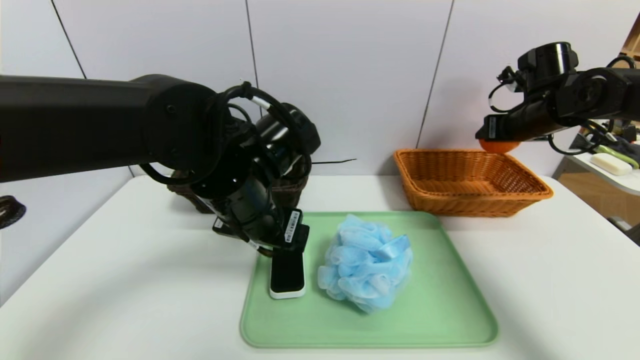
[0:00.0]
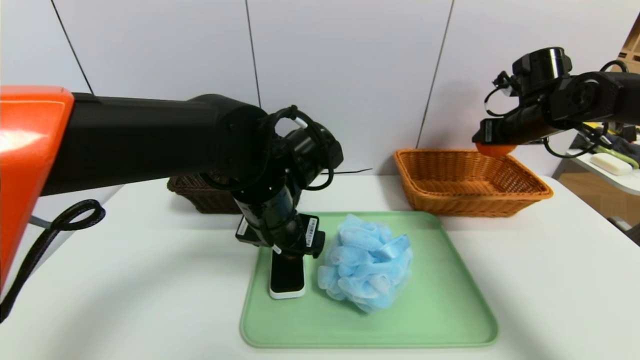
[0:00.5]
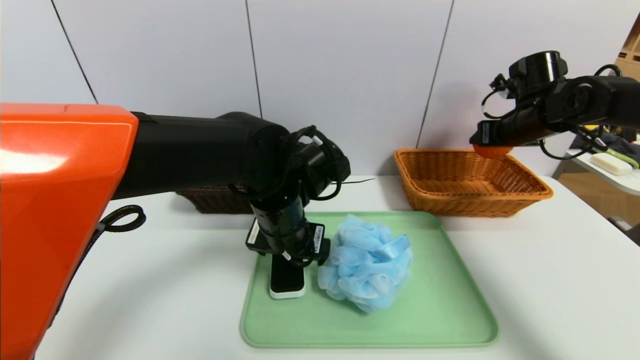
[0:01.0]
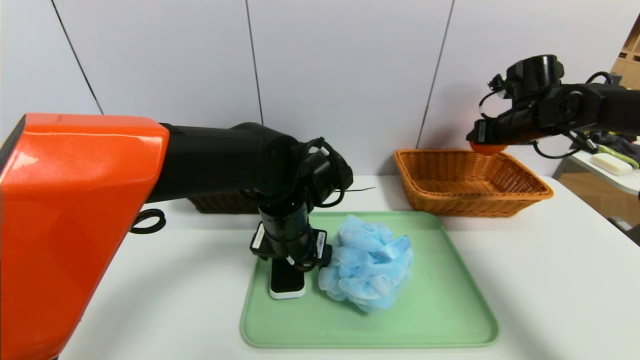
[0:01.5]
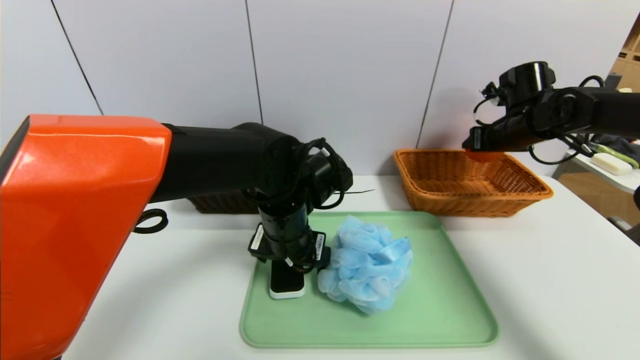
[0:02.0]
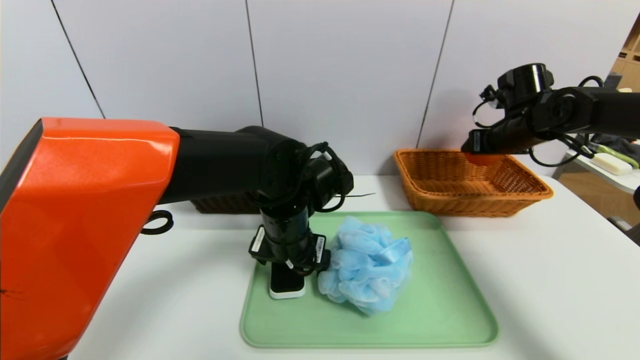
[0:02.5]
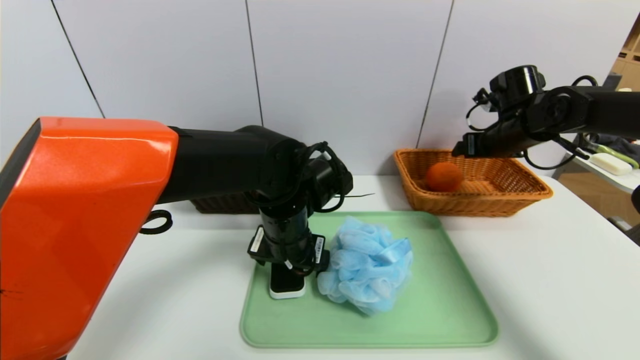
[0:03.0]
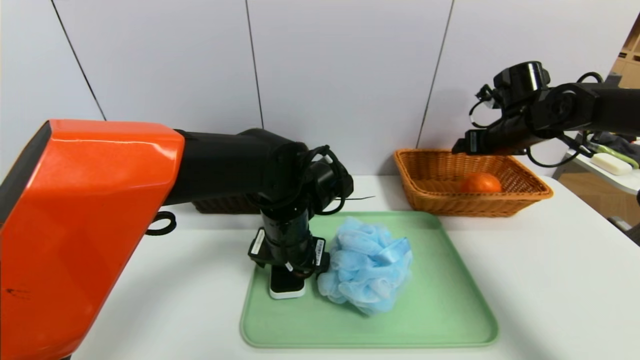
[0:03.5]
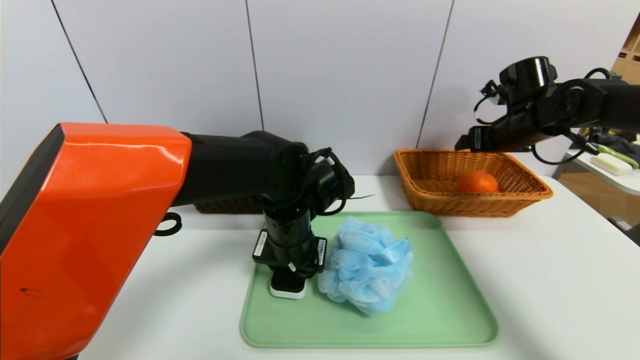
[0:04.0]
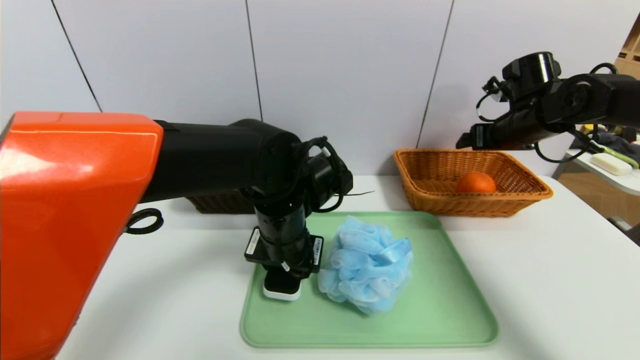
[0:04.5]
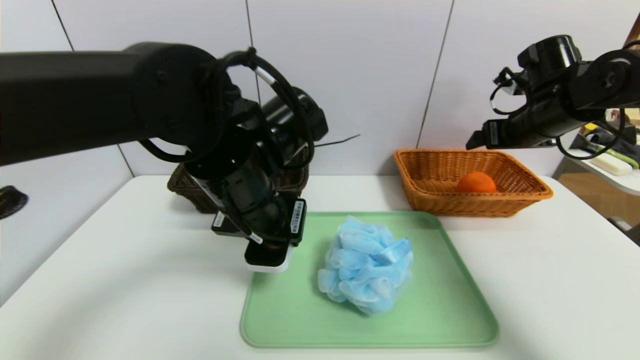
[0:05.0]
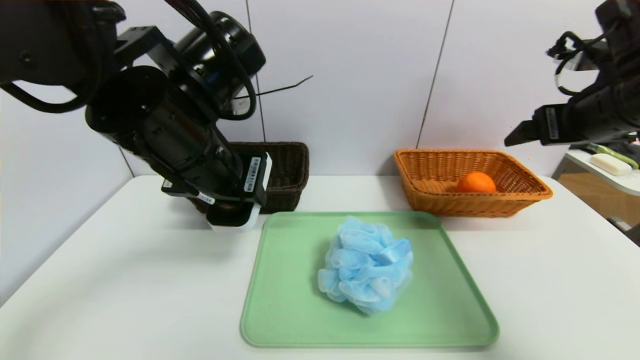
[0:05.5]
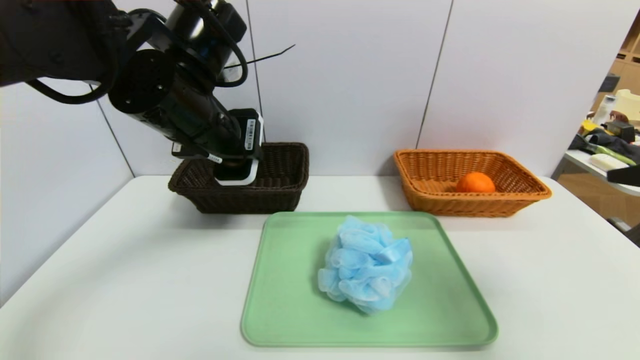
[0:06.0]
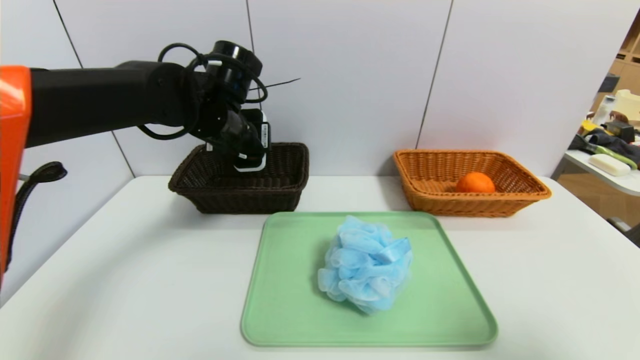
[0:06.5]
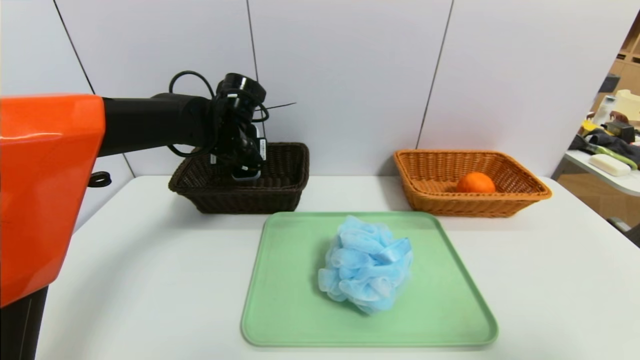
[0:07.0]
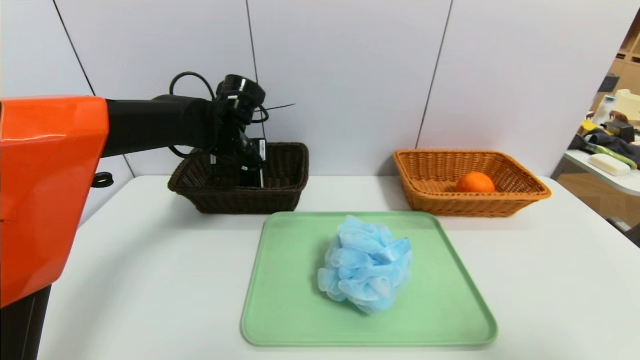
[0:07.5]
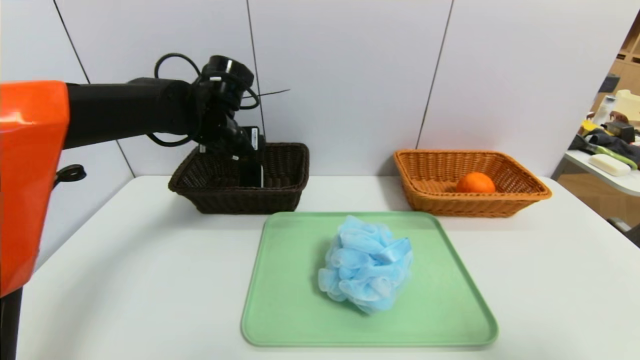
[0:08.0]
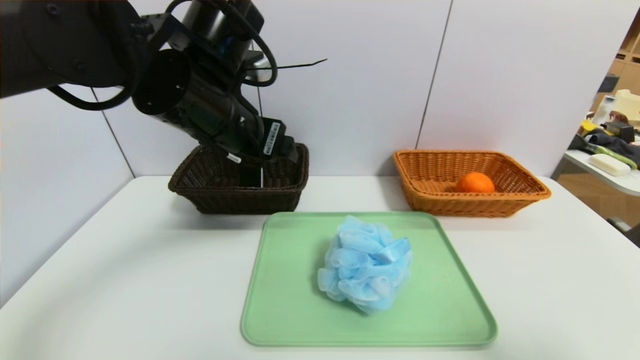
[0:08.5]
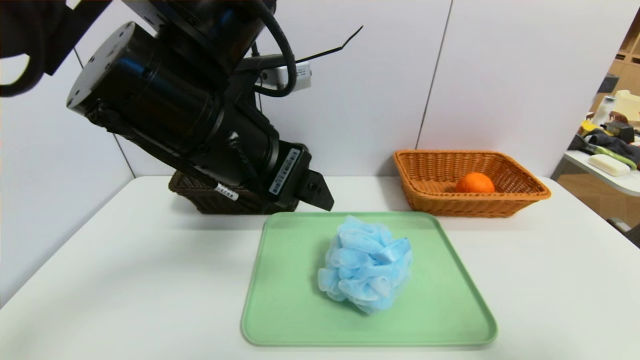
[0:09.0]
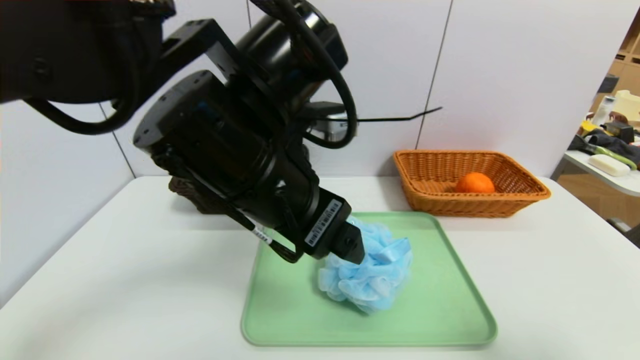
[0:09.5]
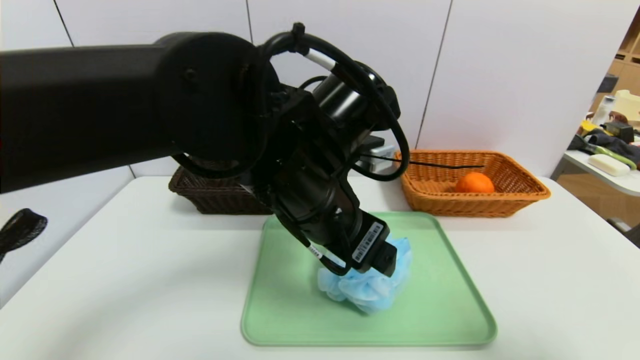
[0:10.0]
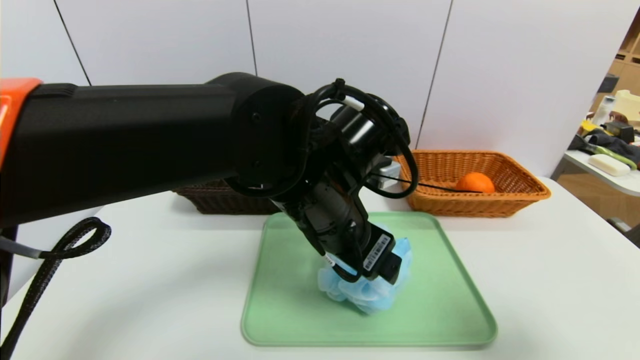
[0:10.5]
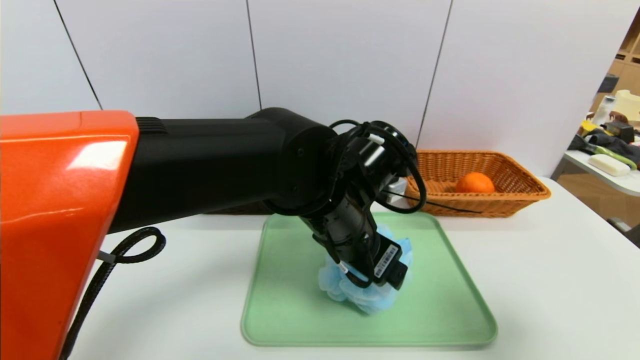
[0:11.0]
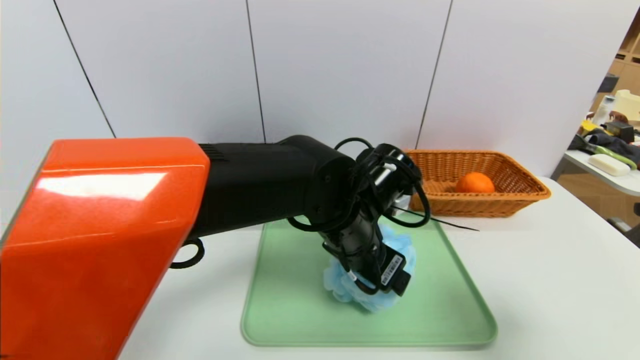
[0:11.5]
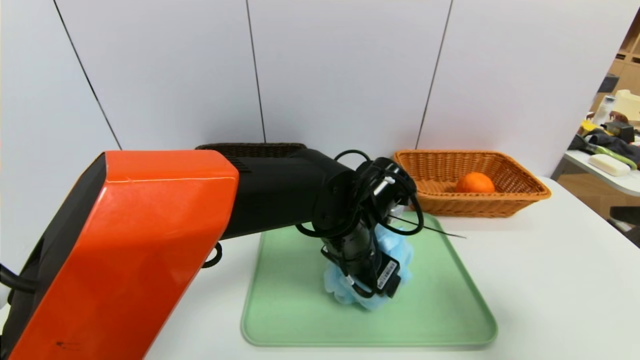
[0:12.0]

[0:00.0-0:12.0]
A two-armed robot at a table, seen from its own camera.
Task of the whole recording: place the food in the right basket with the right gripper, and place the non food items in the left basket with the left gripper.
Step, 0:00.0 to 0:03.0: Grasp the orange and put it in the right basket.
Step, 0:03.5 to 0:07.5: Grasp the white eraser and put it in the left basket.
0:00.0 to 0:02.0: The left gripper moves downward, some 5 cm.
0:02.0 to 0:04.0: The left gripper closes its fingers. The right gripper opens up.
0:04.0 to 0:06.0: The right gripper travels backward by about 30 cm. Meanwhile the left gripper heads upward and to the left, covering approximately 20 cm.
0:06.0 to 0:08.0: The right gripper moves backward, approximately 10 cm; the left gripper shifts about 10 cm forward and downward, and opens its fingers.
0:08.0 to 0:10.0: The left gripper is displaced backward and to the right by roughly 20 cm.
0:10.0 to 0:12.0: The left gripper goes roughly 15 cm downward, to the right and forward, while the right gripper is displaced forward by approximately 5 cm.

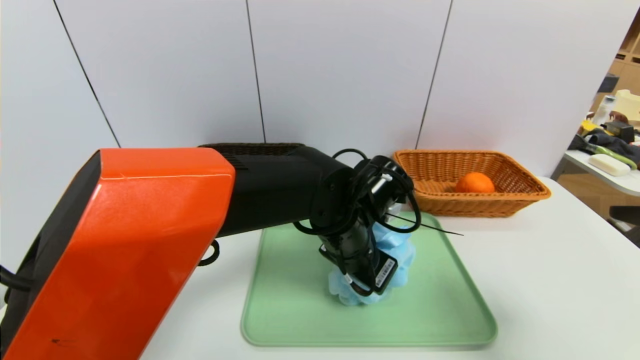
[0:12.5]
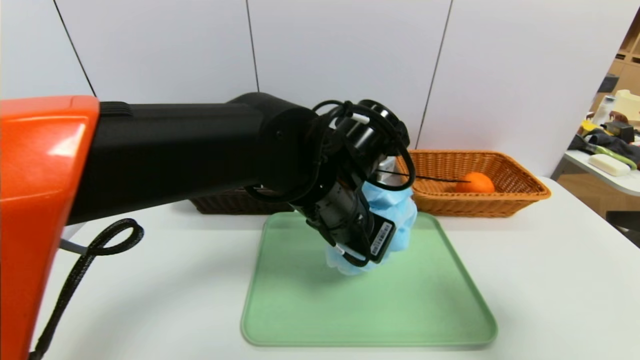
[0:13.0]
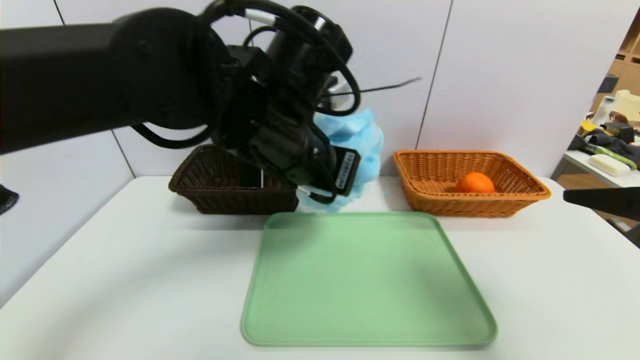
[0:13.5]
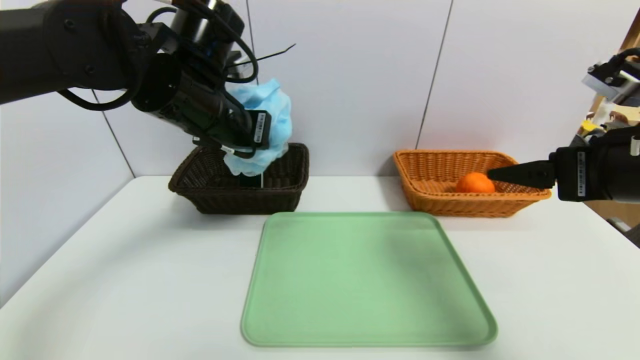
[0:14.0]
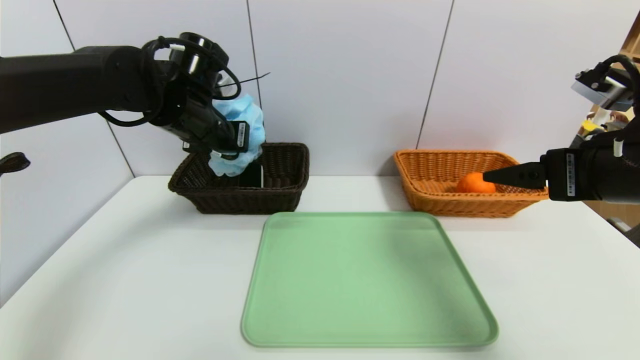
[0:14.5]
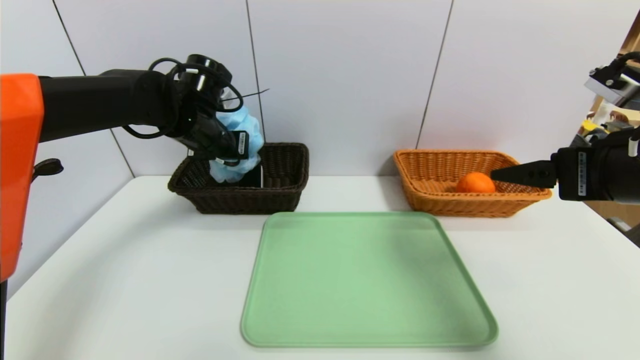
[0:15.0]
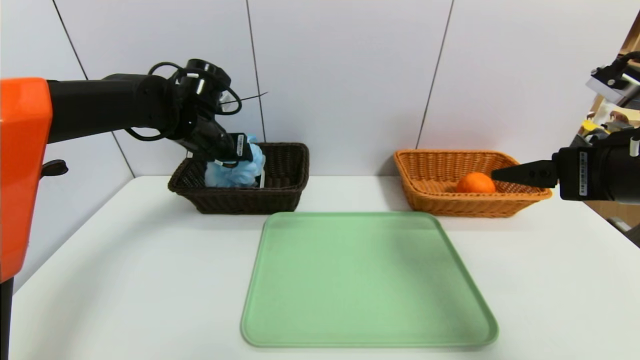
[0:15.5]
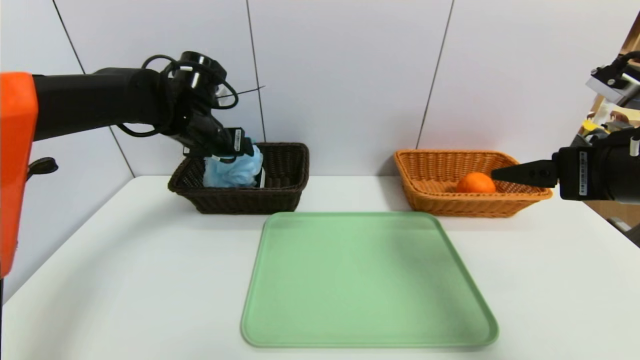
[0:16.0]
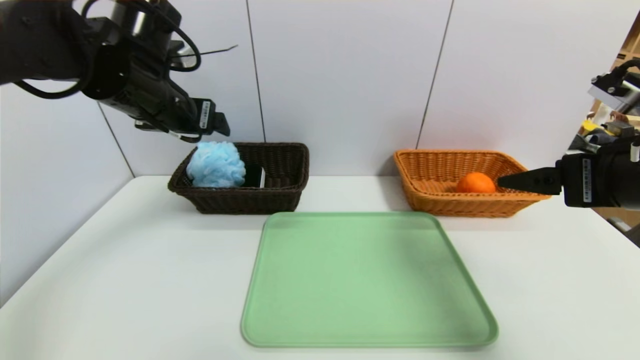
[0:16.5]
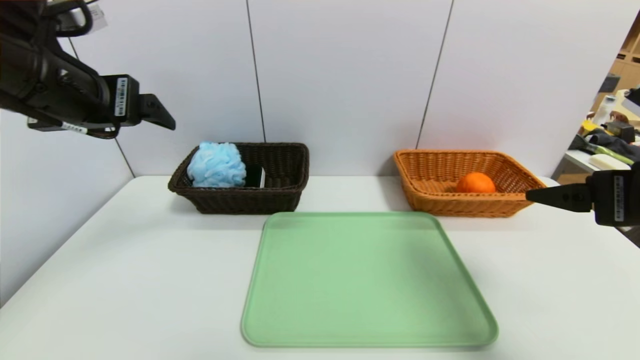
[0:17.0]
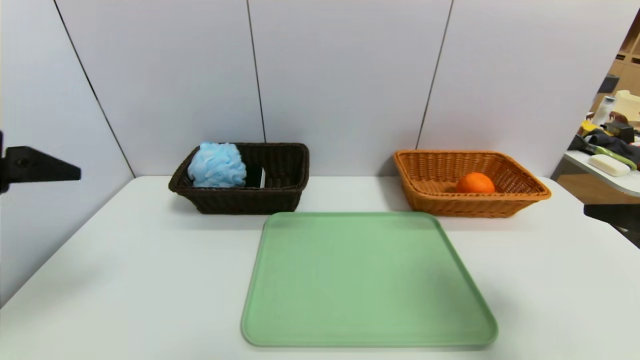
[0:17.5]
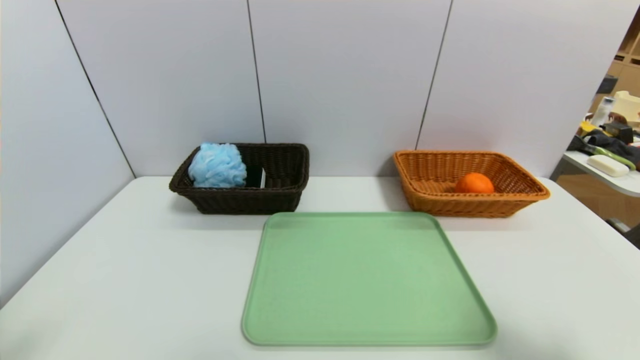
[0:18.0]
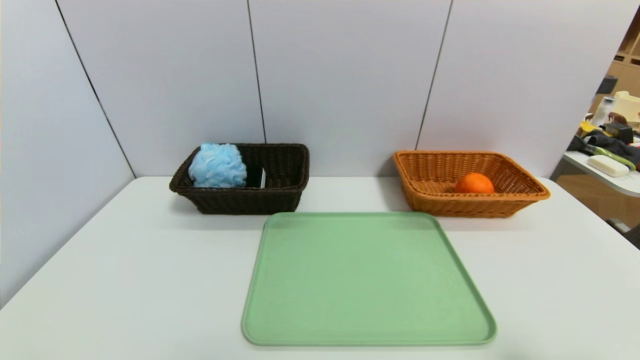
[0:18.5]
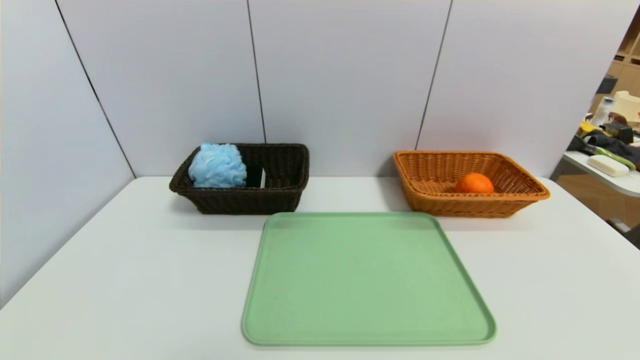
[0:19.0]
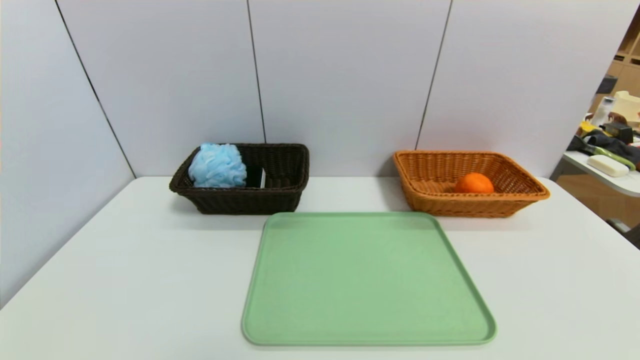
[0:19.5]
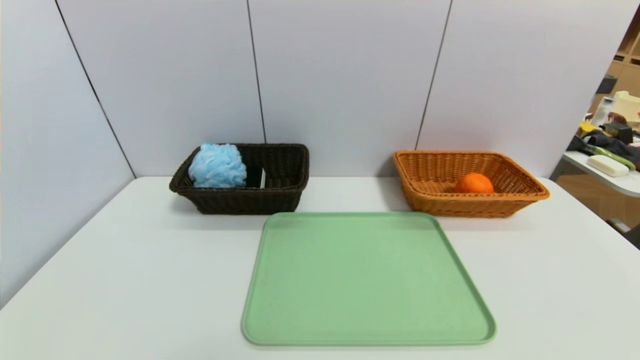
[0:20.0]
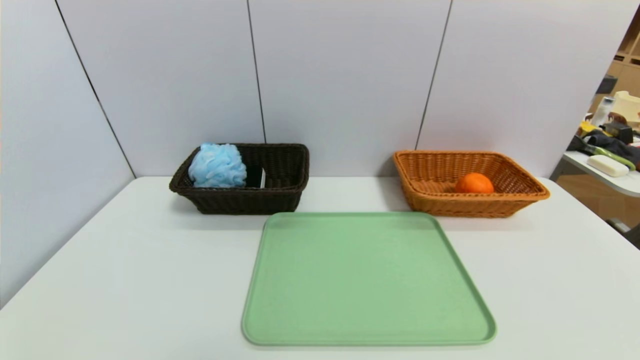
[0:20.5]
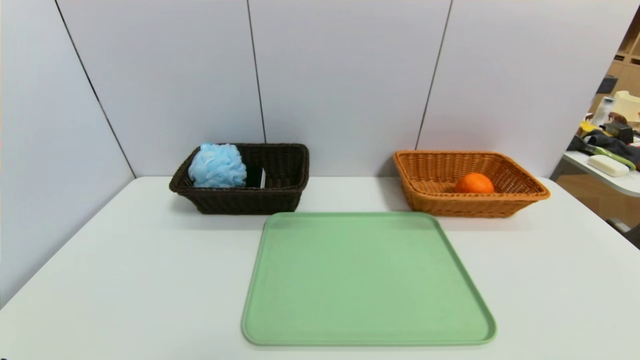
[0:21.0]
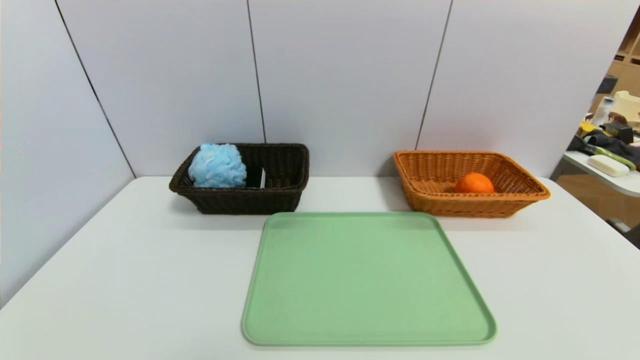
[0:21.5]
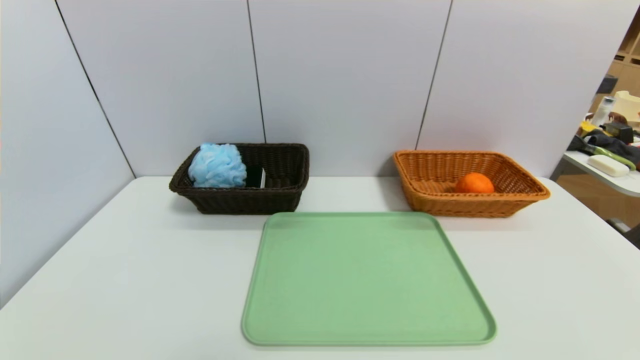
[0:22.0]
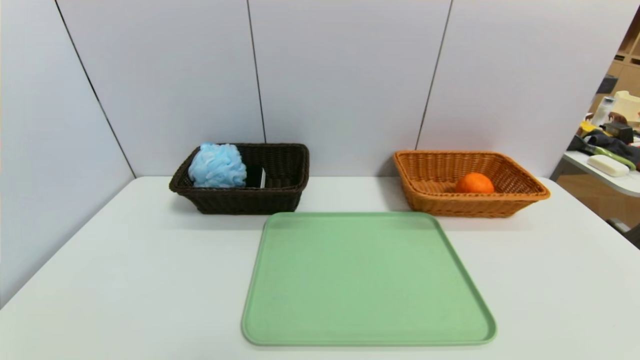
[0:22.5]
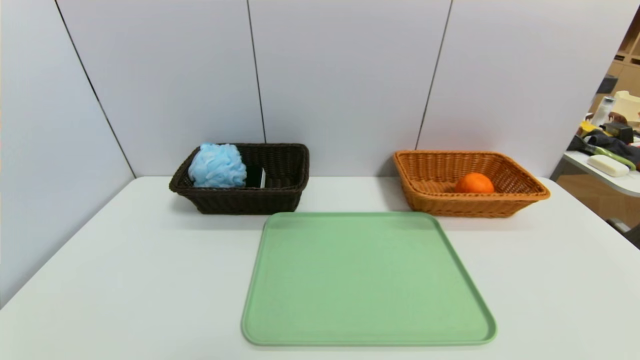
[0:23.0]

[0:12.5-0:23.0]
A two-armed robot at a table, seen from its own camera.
Task of the whole recording: place the food in the right basket with the right gripper, and place the non food items in the left basket with the left gripper.
Step, 0:12.5 to 0:16.0: Grasp the shower sphere and put it in the left basket.
0:12.5 to 0:14.5: The right gripper shifts about 10 cm forward. Meanwhile the left gripper heads to the left, upward and forward, covering about 25 cm.
0:14.5 to 0:16.5: The left gripper changes place by roughly 5 cm, and opens.
0:16.5 to 0:19.0: The left gripper moves backward, roughly 40 cm, while the right gripper shifts roughly 25 cm backward.
